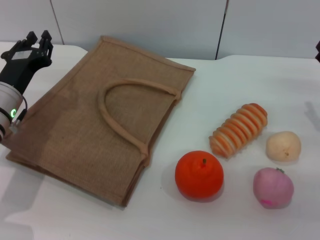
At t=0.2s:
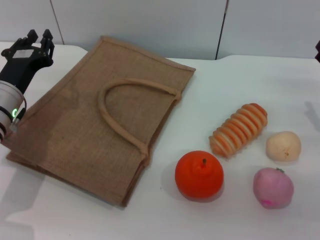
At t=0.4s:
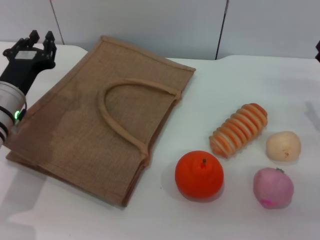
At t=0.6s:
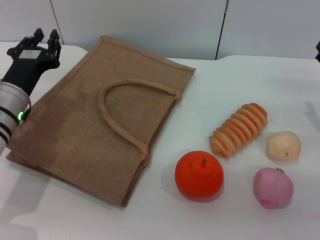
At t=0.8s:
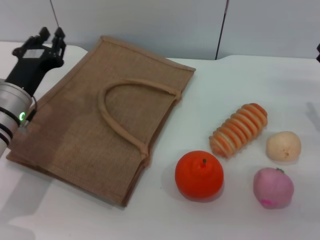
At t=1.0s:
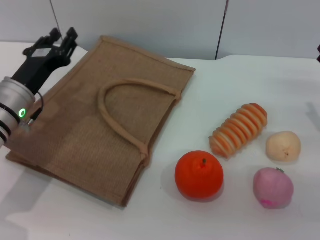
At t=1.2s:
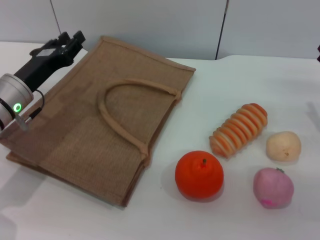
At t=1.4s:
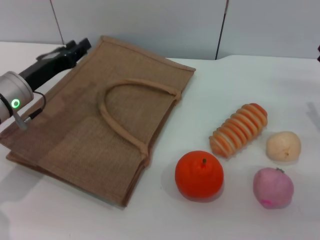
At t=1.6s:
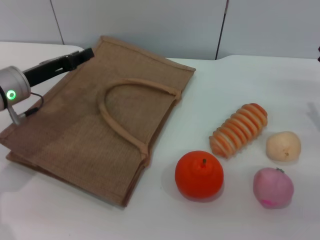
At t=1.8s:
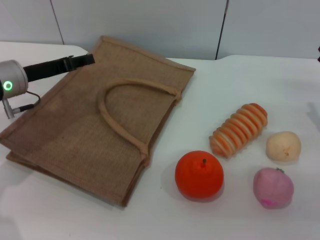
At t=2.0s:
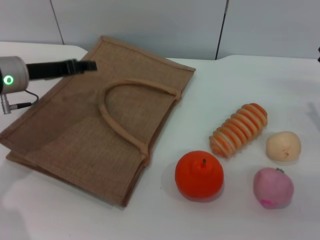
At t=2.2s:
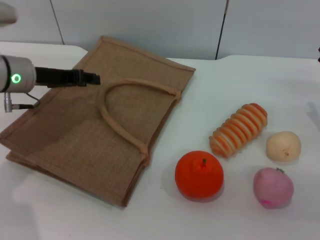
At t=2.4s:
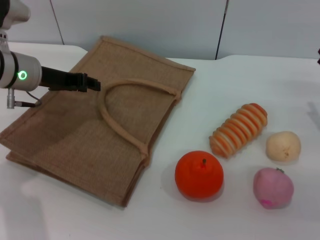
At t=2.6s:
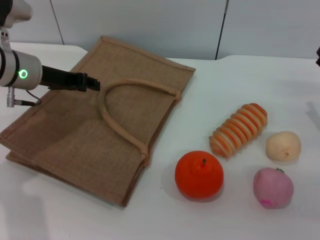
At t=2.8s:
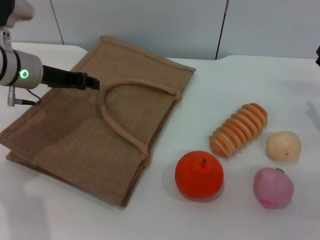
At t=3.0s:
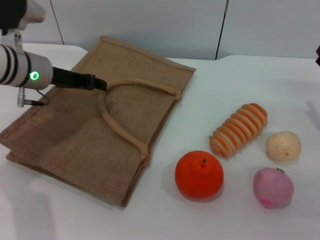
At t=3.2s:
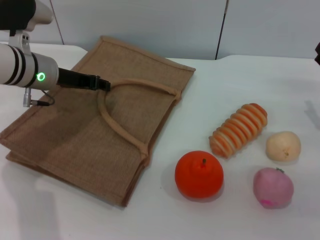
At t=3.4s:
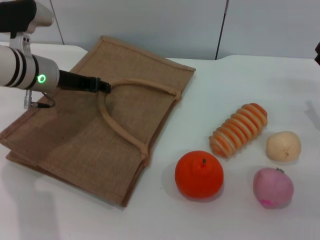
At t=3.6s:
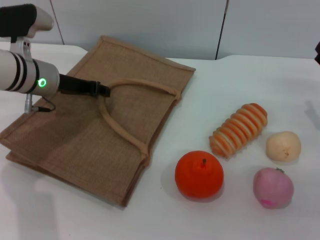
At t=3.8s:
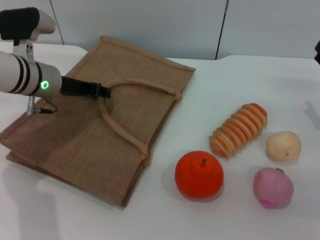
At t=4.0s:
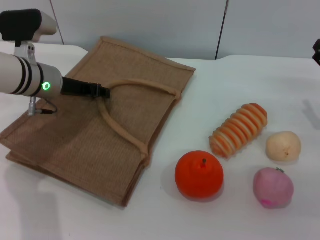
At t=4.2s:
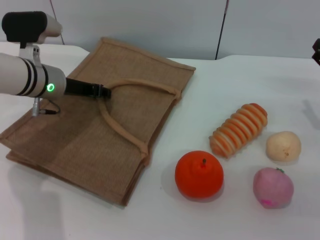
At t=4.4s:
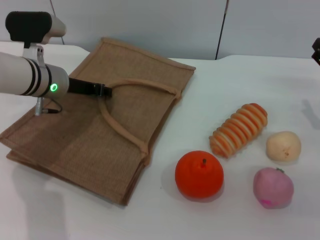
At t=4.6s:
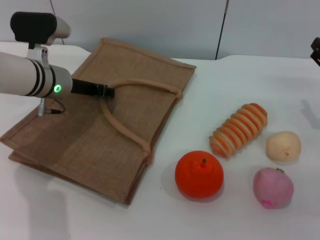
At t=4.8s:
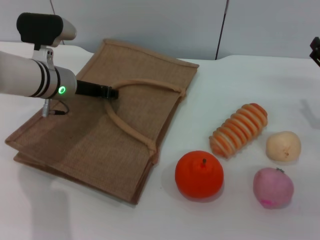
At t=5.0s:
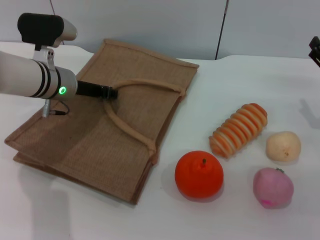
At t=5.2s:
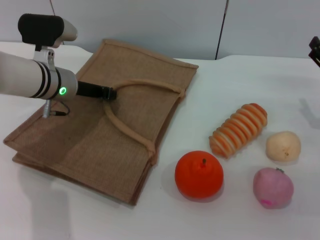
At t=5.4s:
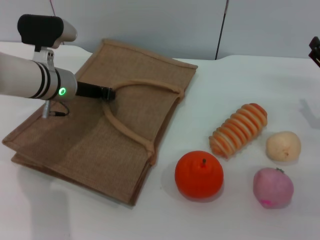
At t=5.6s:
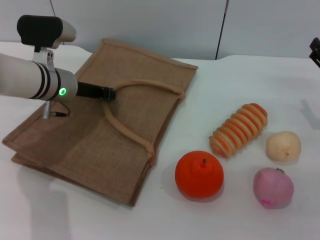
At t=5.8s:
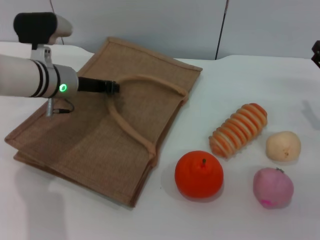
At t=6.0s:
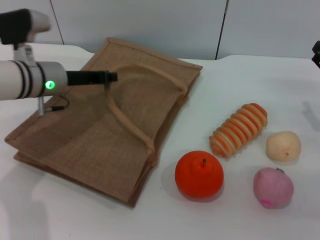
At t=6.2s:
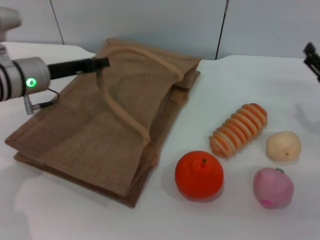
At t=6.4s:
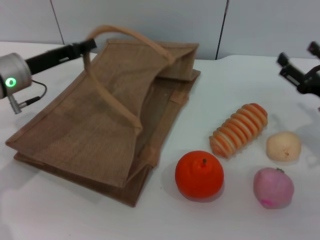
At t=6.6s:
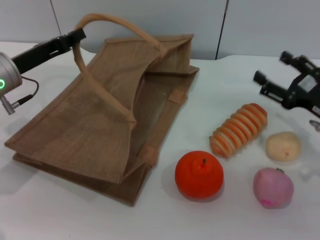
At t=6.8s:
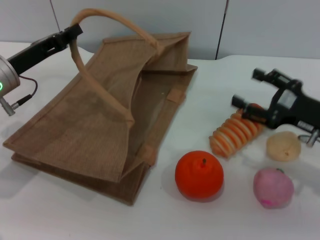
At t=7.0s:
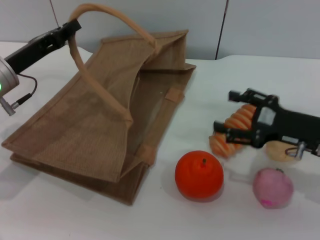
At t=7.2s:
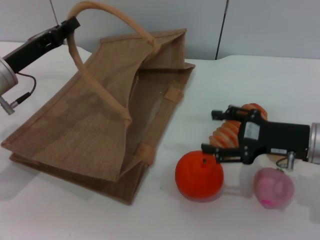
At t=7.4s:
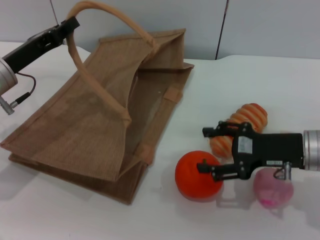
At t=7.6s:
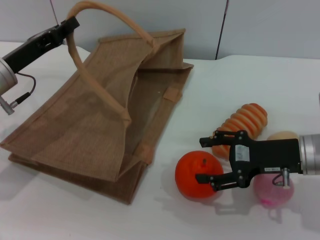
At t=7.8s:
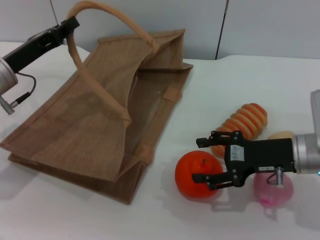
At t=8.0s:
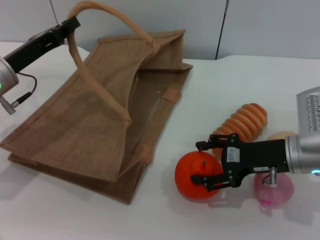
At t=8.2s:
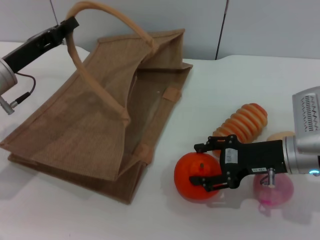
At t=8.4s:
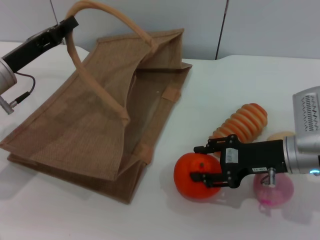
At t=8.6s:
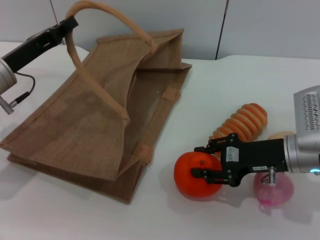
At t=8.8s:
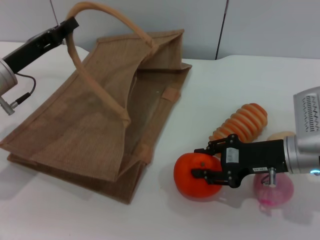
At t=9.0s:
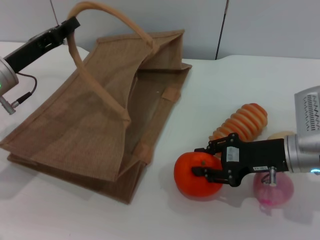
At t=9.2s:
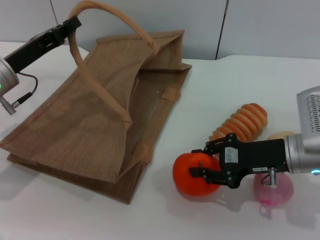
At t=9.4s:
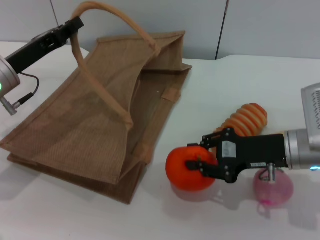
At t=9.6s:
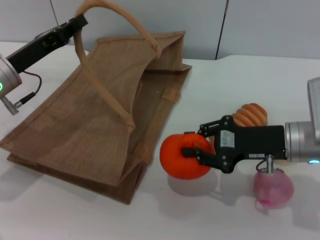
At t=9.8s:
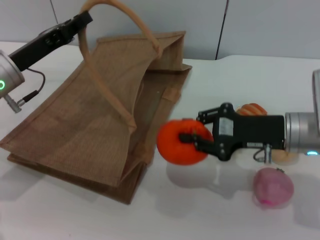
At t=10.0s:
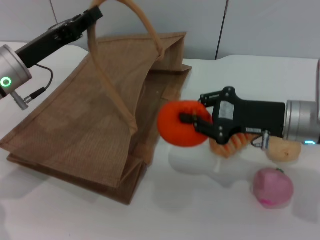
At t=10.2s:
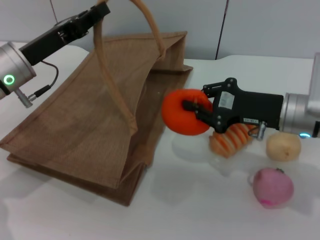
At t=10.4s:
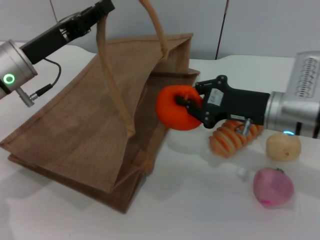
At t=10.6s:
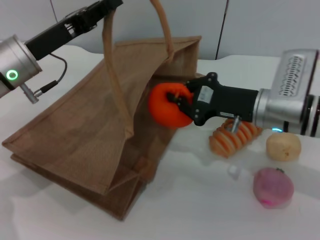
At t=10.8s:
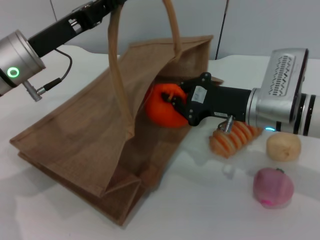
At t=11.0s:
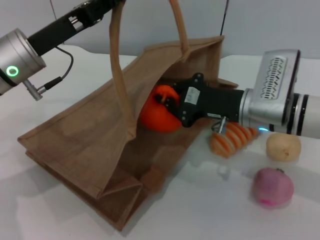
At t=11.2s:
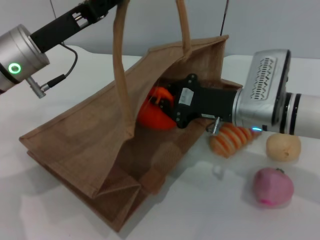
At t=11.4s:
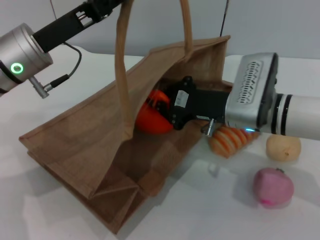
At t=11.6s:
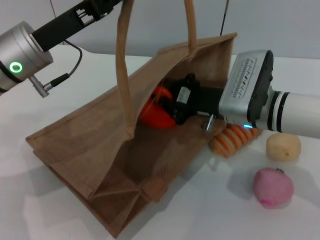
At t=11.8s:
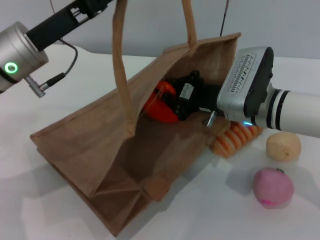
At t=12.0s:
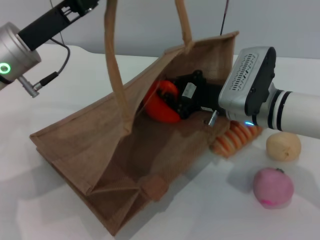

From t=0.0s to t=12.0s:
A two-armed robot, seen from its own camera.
Task of the whole recording: pick up the orange from the table and place it in the brown handbag.
Step, from t=0.0s to t=6.2s: Lift the woven bag with the left gripper to open it.
Step, from t=6.4s to t=9.6s: Pick up the orange with the right gripper.
From t=1.6s to t=3.0s: The left gripper ends up about 5 cm from where it was.
From t=3.0s to t=4.4s: There are only small adjustments of the grippers.
From t=4.4s to t=6.0s: The left gripper closes.
From t=6.0s to t=7.6s: The left gripper is displaced to the left and backward by about 10 cm, while the right gripper heads to the left, covering some 10 cm.
From t=7.6s to t=9.0s: The right gripper closes.
From t=9.0s to t=10.4s: The right gripper changes place by some 5 cm.
From t=10.4s to t=12.0s: The right gripper heads to the left, covering roughly 5 cm.

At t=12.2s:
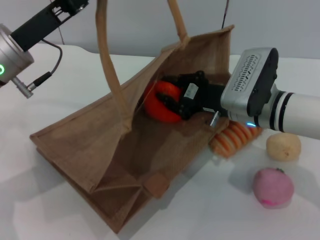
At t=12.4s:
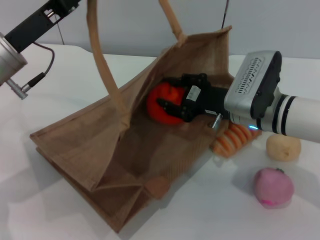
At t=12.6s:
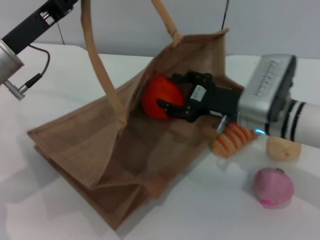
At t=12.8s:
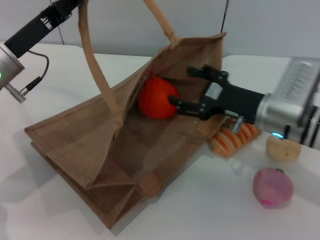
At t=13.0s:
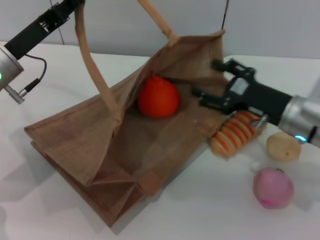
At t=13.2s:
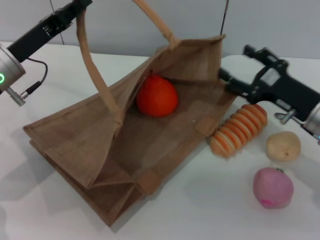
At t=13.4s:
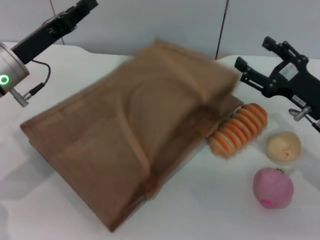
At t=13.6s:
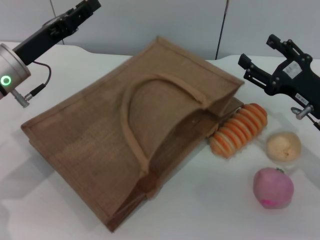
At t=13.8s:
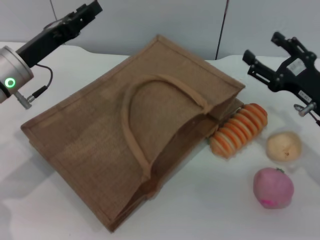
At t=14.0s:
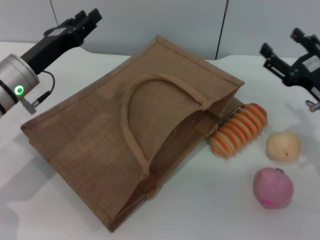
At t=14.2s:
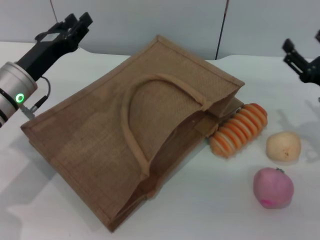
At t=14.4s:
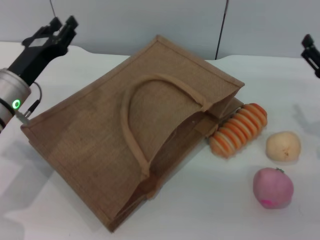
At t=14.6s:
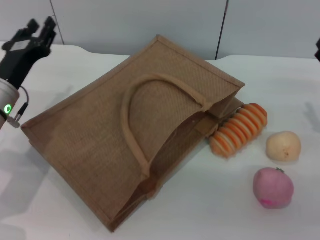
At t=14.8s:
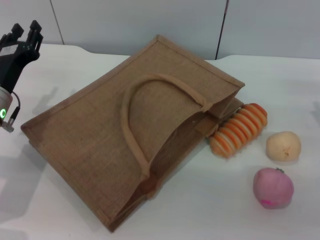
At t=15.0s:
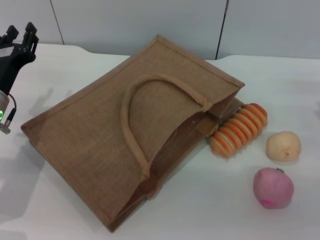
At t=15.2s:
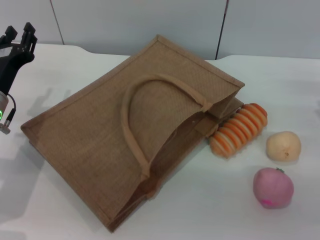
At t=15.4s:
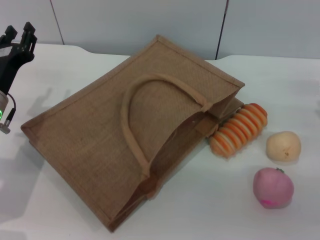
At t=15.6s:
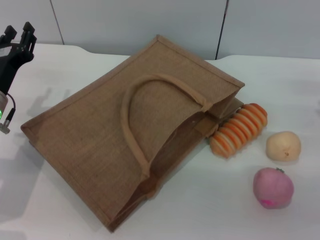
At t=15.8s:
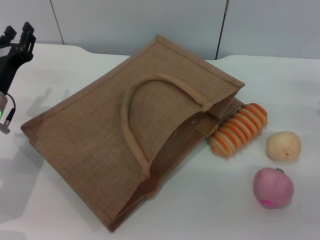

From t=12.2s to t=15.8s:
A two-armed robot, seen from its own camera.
Task of the whole recording: pick up the orange from the table and place it in the brown handbag.
Step, from t=12.8s to t=13.6s: Lower the woven bag with the left gripper to close it.
From t=12.2s to t=14.0s: The left gripper goes some 5 cm downward, and opens. Meanwhile the right gripper shifts about 15 cm to the right, and opens up.
From t=14.0s to t=15.8s: The left gripper ends up approximately 5 cm from where it was. The right gripper moves to the right, roughly 5 cm.
